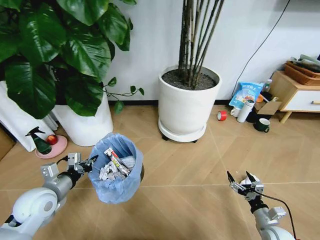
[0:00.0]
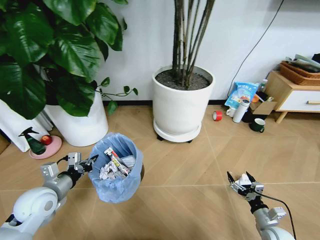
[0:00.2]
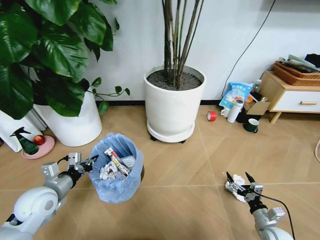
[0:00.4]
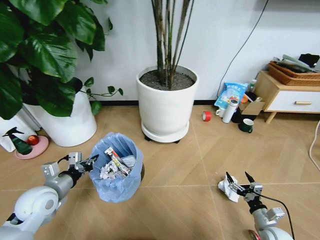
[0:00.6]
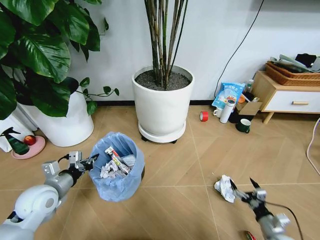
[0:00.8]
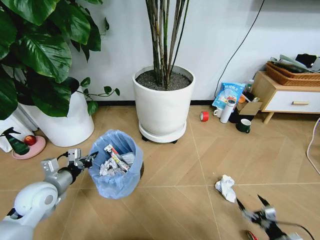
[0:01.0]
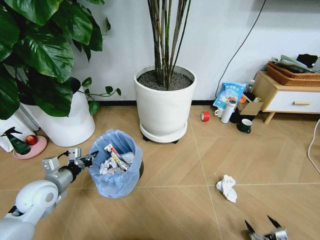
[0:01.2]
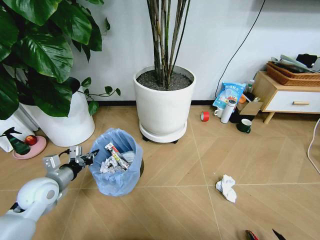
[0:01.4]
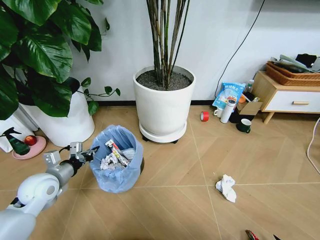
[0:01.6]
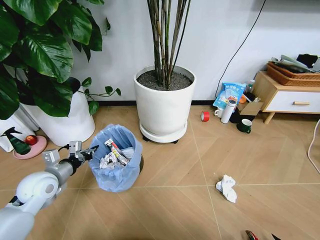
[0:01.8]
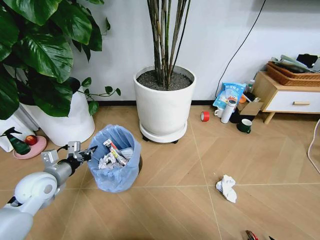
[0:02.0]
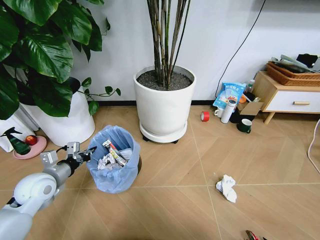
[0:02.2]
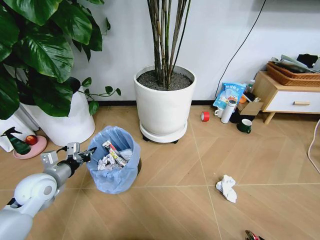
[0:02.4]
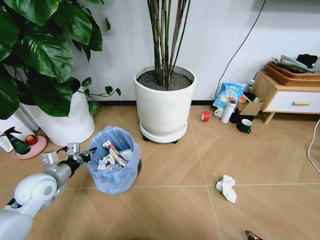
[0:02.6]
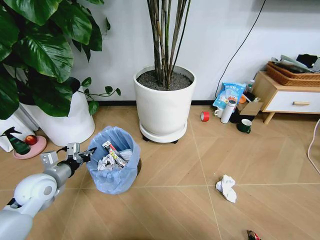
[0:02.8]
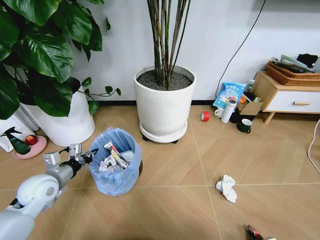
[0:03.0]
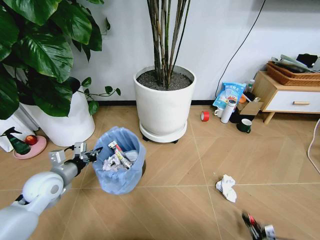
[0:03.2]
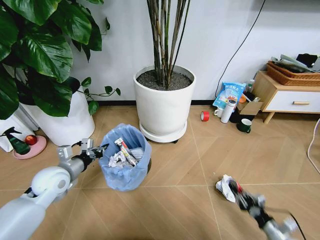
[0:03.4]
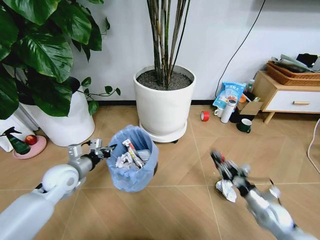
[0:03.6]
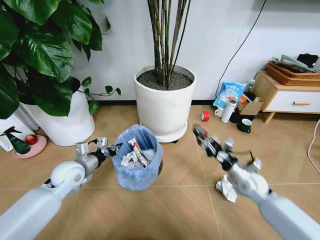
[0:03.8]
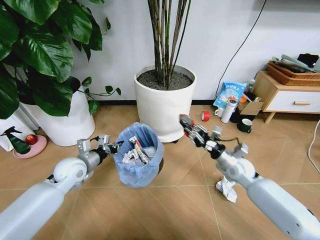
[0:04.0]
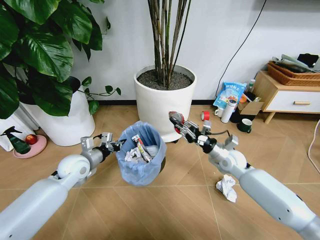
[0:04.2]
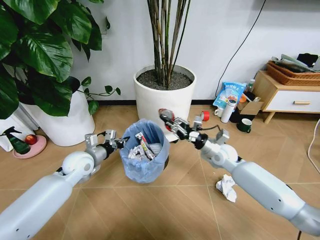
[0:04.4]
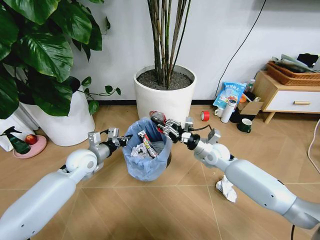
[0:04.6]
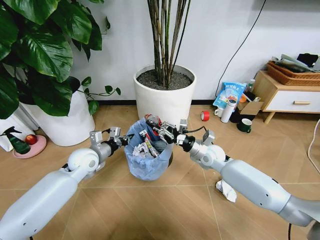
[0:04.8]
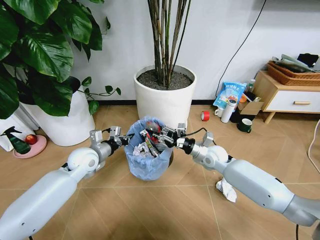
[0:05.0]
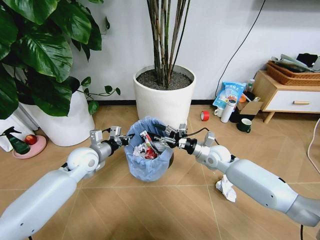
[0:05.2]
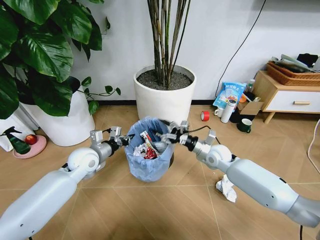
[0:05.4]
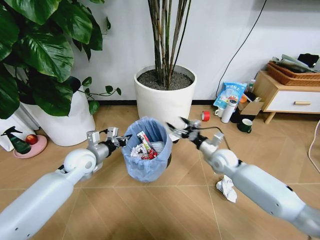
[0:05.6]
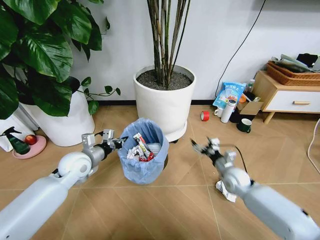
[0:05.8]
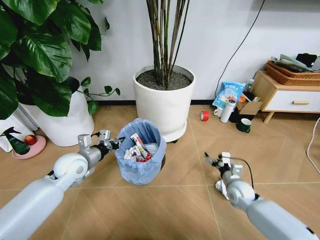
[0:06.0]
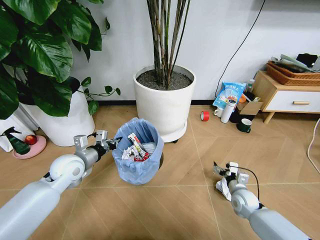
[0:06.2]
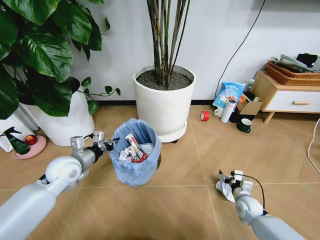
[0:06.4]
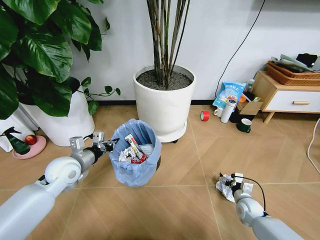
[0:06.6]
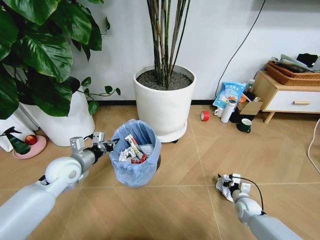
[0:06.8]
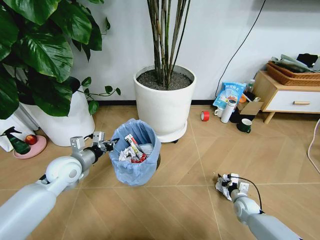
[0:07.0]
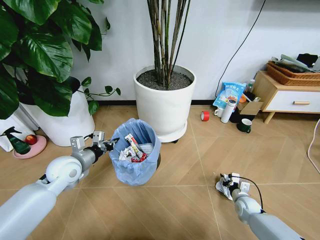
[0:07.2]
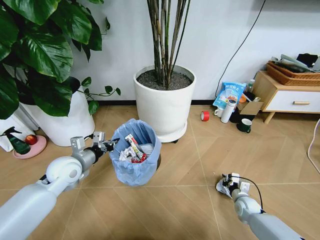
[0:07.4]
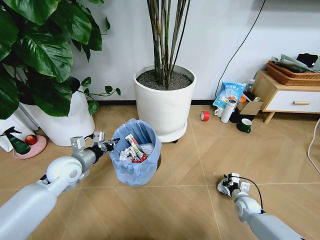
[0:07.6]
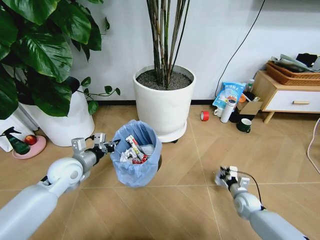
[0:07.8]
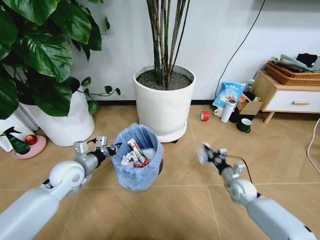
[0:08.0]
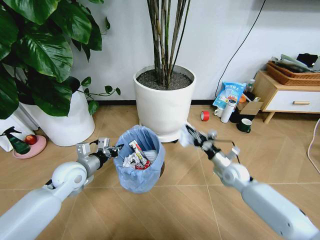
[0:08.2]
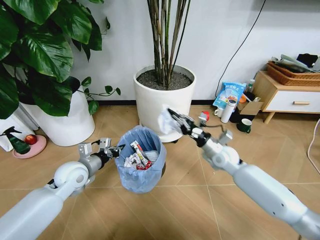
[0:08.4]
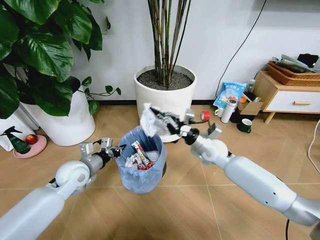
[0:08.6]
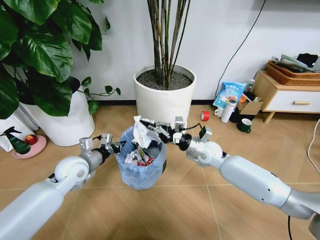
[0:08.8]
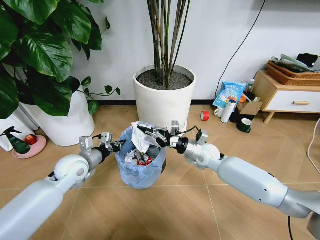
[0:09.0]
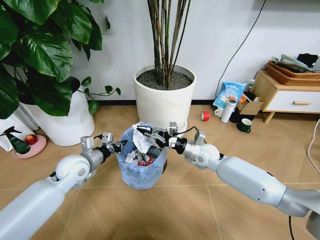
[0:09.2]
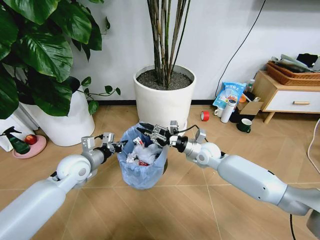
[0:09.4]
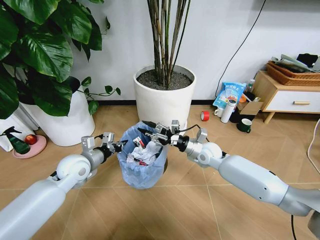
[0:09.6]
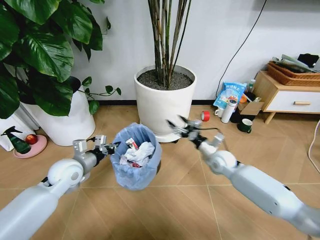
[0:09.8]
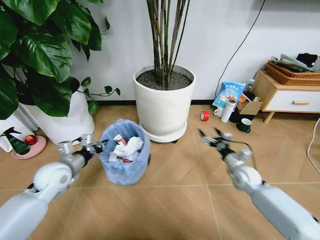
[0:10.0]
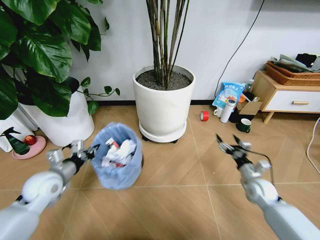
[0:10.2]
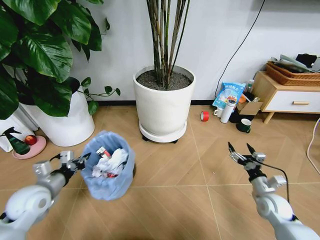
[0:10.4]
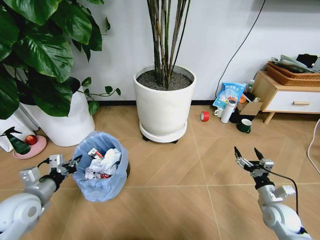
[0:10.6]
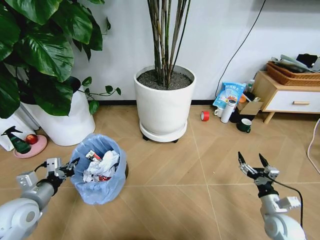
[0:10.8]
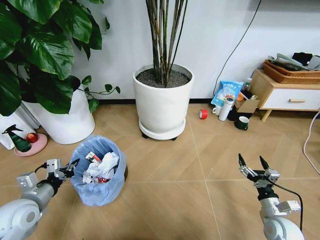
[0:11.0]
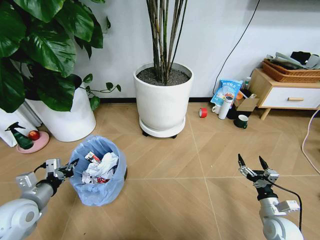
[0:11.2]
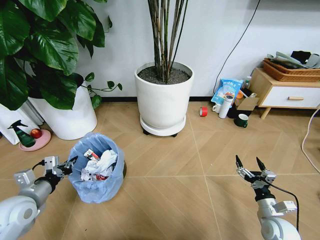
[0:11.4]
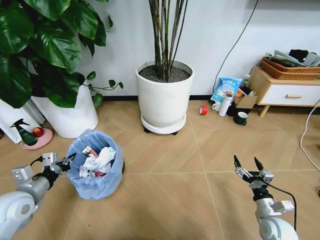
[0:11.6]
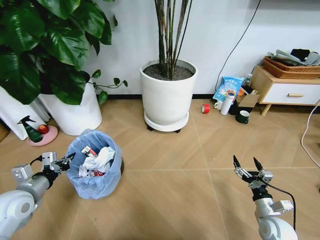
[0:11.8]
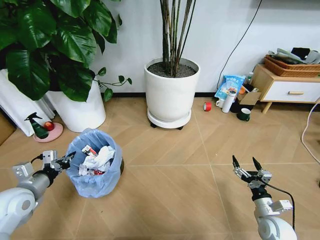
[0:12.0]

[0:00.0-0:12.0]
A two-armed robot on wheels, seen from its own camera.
Task of the whole recording: Pick up the trash bin and place the garbage on the floor into it.
0:00.0 to 0:01.6: The right gripper is displaced backward by approximately 20 cm.
0:01.6 to 0:03.0: The right gripper moves downward, some 5 cm, and closes.
0:03.0 to 0:04.4: The right gripper heads forward, upward and to the left, covering about 50 cm, while the left gripper heads forward and to the right, covering approximately 10 cm.
0:04.4 to 0:06.0: The right gripper shifts approximately 20 cm downward, backward and to the right, and opens its fingers.
0:06.0 to 0:07.6: The right gripper shifts some 10 cm downward and to the right, and closes its fingers.
0:07.6 to 0:09.0: The right gripper goes some 35 cm upward, to the left and forward.
0:09.0 to 0:10.4: The left gripper shifts roughly 15 cm to the left and backward, while the right gripper moves to the right, backward and downward, some 30 cm, and opens.
0:10.4 to 0:12.0: The right gripper moves backward, approximately 5 cm.

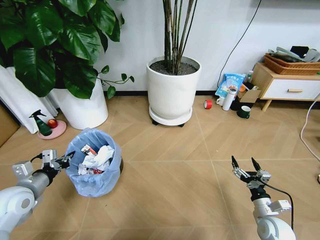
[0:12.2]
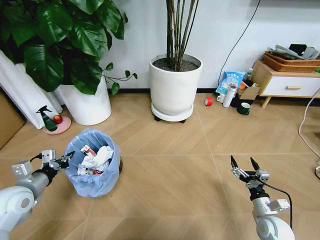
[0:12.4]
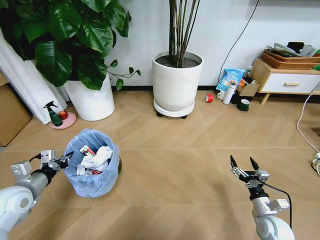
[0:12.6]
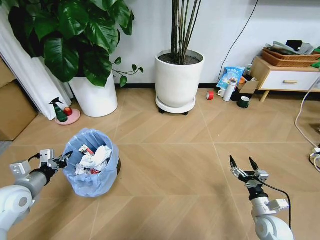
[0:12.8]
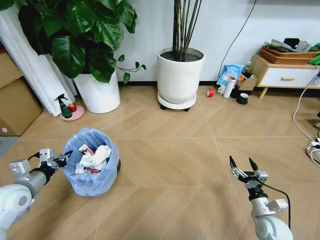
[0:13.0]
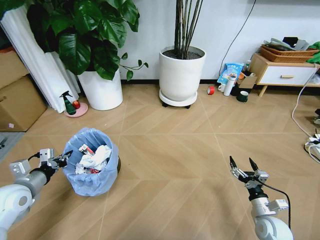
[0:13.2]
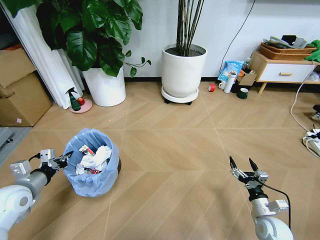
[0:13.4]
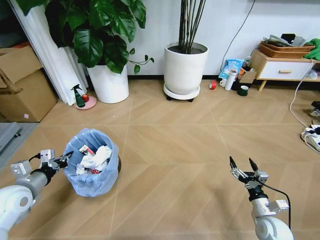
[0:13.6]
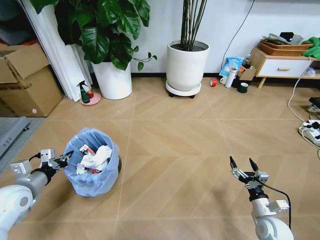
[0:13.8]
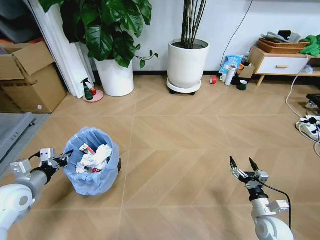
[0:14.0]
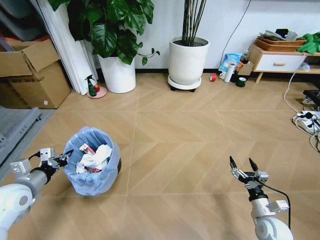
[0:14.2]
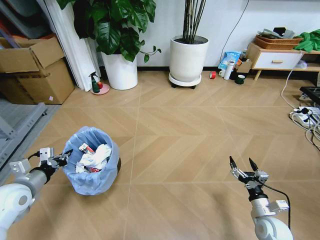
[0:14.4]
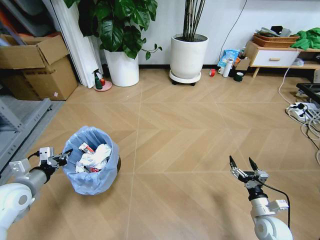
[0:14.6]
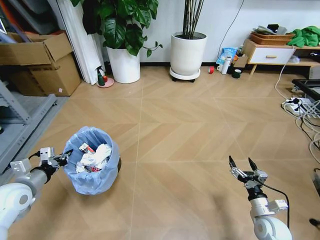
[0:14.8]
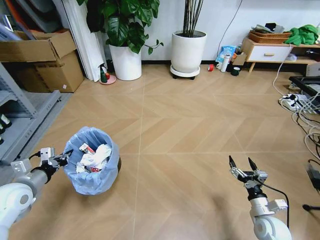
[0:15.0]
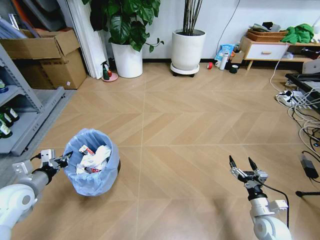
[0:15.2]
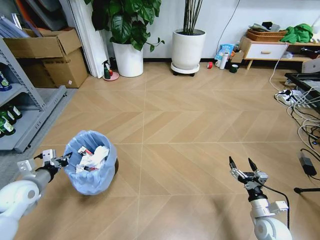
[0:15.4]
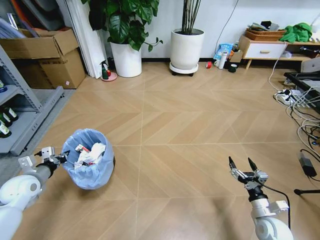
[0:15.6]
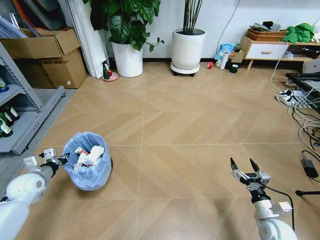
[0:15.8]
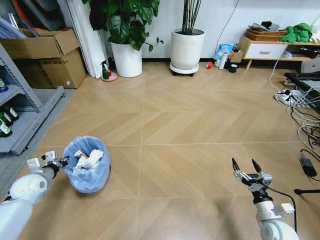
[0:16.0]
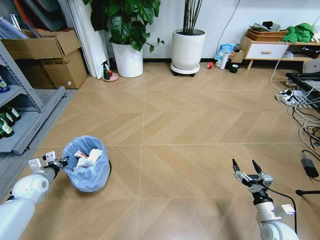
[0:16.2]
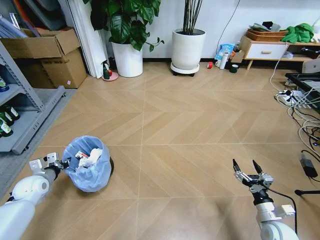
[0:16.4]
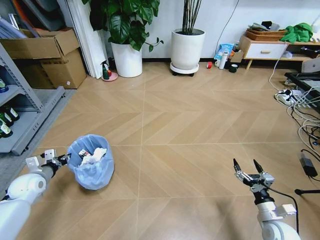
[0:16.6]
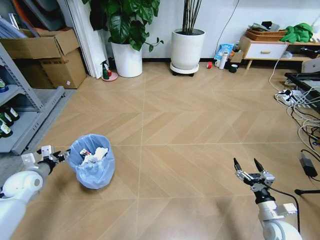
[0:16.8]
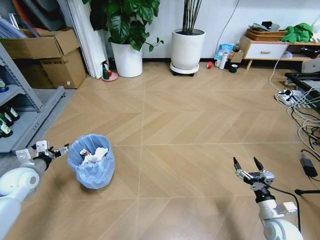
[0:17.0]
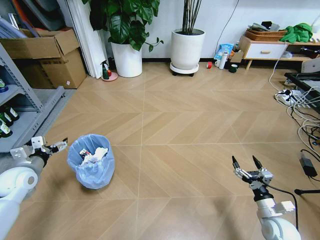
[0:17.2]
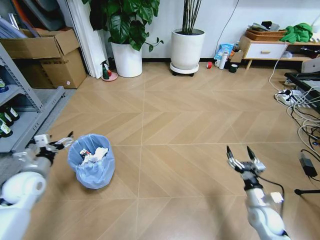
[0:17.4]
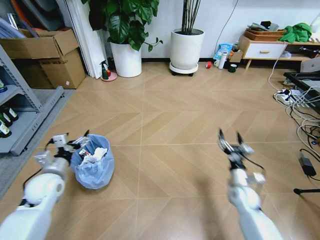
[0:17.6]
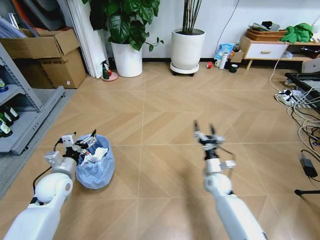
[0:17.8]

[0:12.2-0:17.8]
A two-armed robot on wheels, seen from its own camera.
Task of the whole recording: Pick up the trash bin and place the garbage on the floor into it.
0:15.0 to 0:16.4: The left gripper is displaced downward and forward by roughly 10 cm.
0:16.4 to 0:17.8: The right gripper is displaced forward and to the left by about 25 cm; the left gripper moves to the right and upward, roughly 15 cm, and opens.
